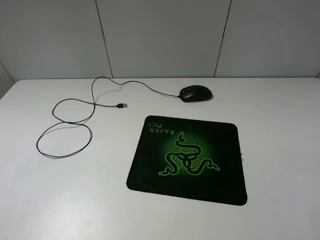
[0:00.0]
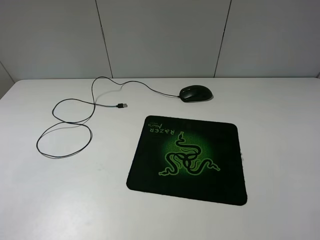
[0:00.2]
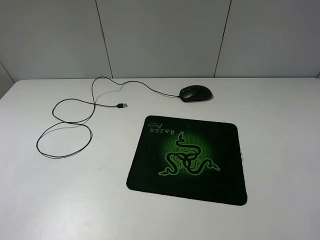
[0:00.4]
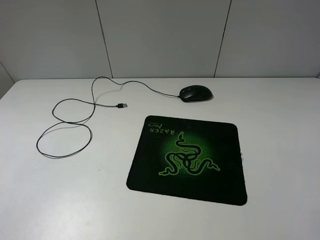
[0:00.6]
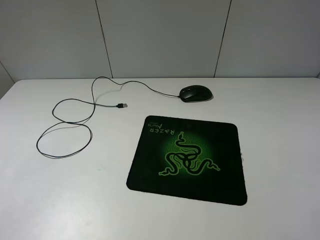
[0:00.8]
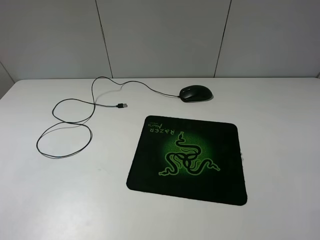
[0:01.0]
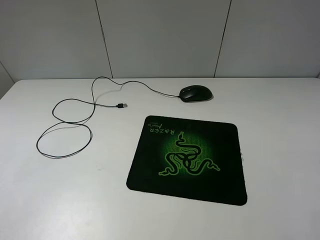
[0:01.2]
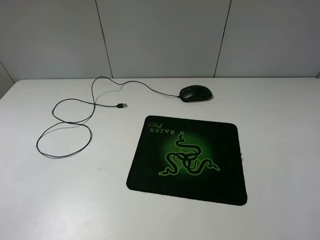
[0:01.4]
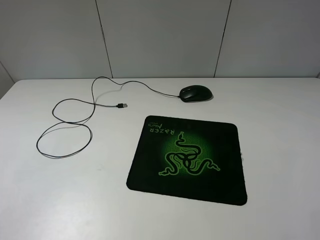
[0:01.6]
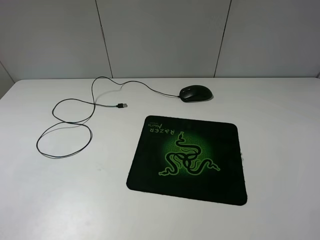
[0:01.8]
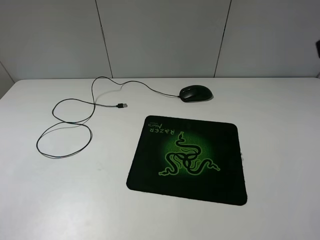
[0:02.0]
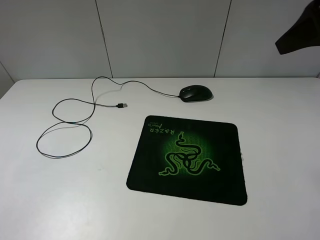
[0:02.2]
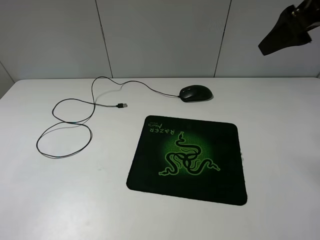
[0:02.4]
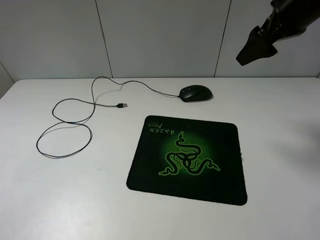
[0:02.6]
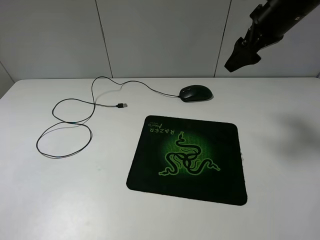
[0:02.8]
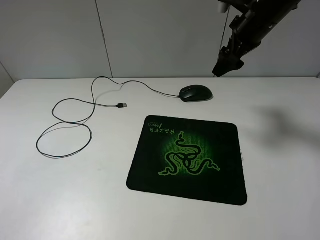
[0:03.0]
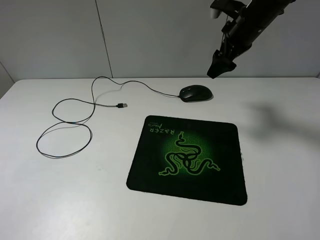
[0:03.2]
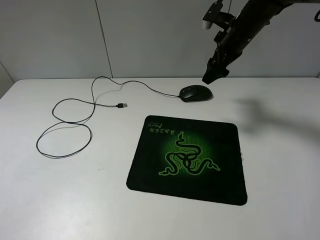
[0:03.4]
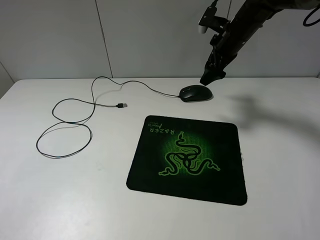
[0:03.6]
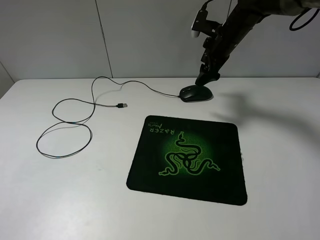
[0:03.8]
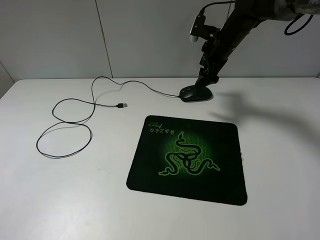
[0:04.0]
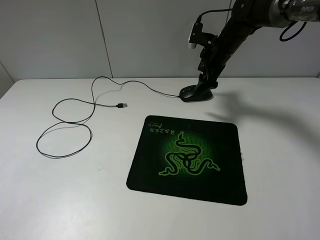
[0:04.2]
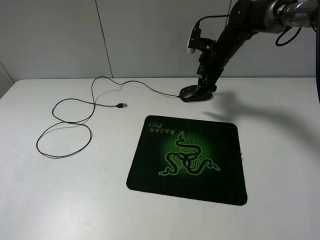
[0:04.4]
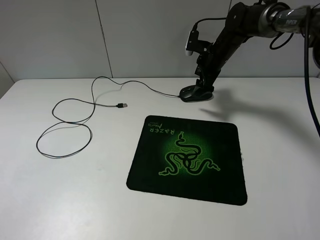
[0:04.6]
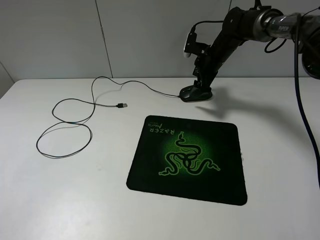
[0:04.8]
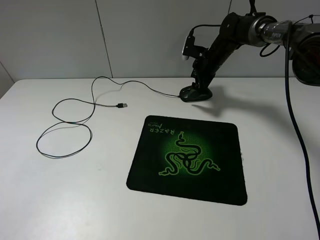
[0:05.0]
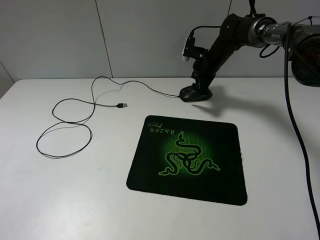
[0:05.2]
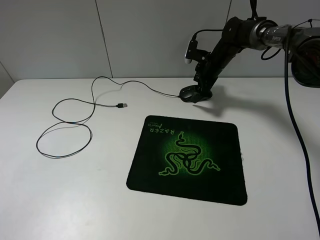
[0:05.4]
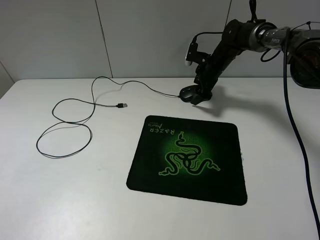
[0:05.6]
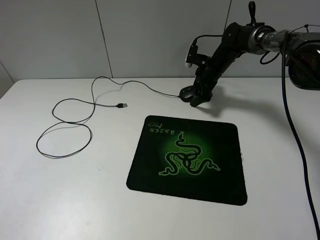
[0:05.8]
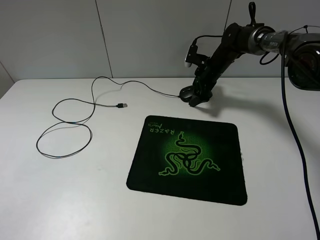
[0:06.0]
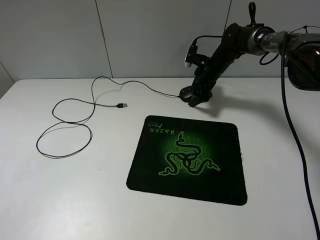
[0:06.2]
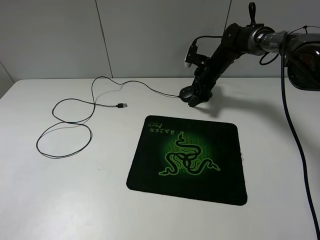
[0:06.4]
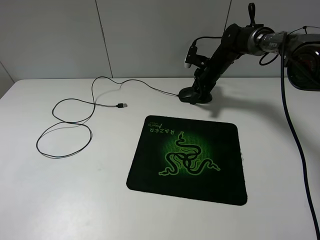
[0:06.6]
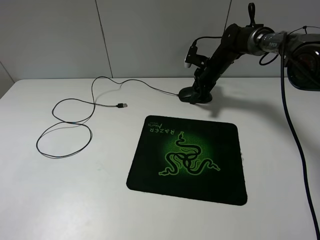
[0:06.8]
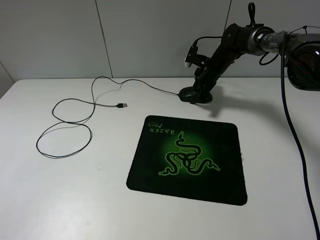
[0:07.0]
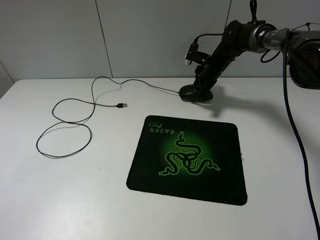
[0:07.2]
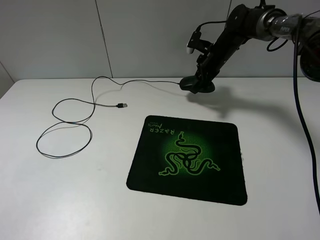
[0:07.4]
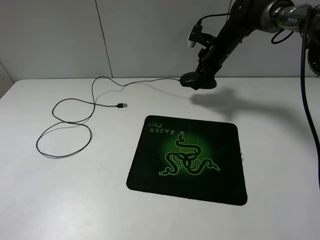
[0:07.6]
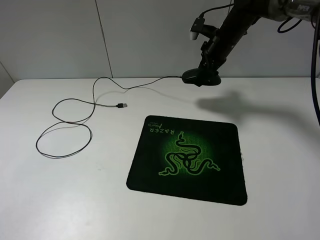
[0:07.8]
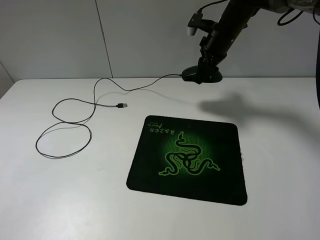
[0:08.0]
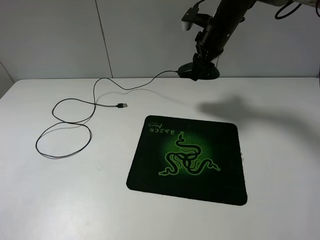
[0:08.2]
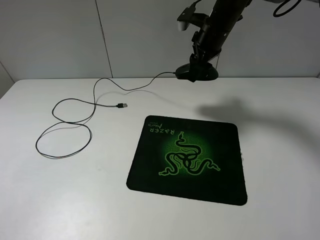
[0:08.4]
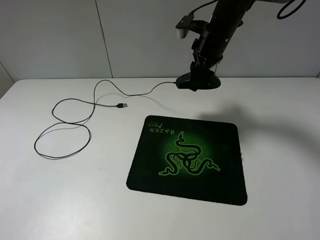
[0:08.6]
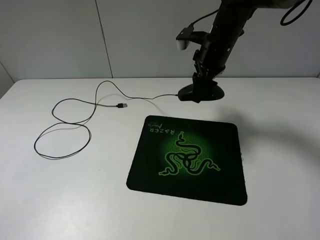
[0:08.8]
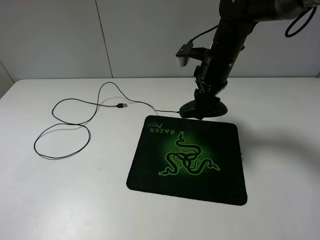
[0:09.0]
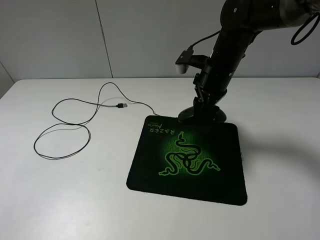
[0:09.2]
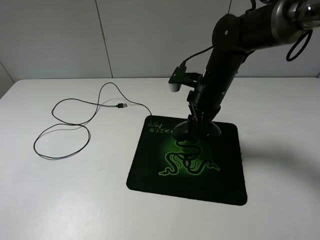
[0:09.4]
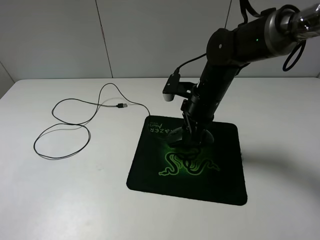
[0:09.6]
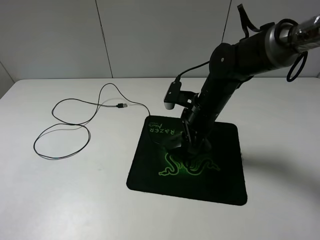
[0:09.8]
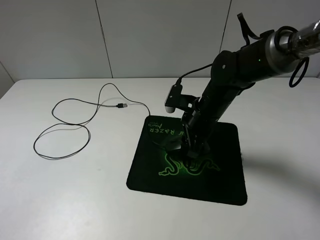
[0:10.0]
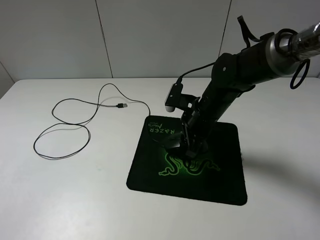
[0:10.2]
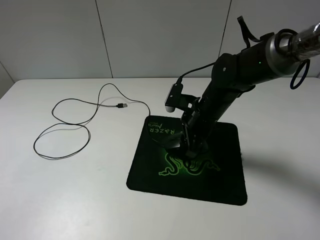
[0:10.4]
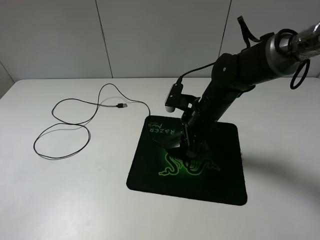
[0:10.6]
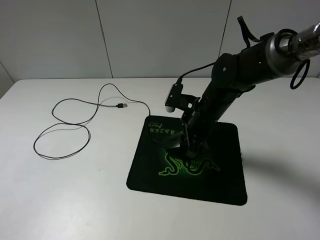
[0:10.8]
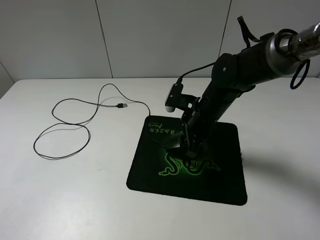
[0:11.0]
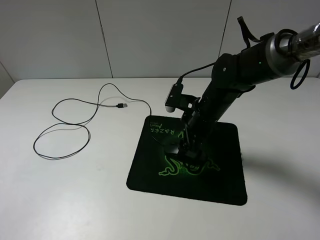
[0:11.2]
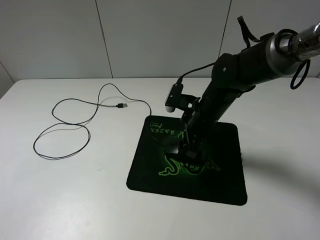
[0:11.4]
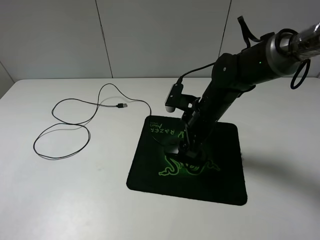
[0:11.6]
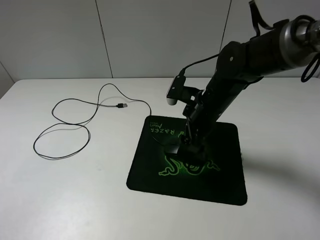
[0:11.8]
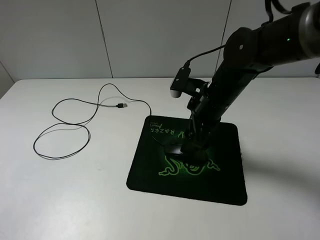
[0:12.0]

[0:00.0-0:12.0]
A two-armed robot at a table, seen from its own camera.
Step, 0:00.0 to 0:07.0: Grasp the mouse with the right gripper.
Step, 0:07.2 to 0:11.6: Place the mouse on the mouse mat with the right gripper.
0:01.6 to 0:03.0: The right gripper goes some 35 cm forward.
0:03.0 to 0:04.4: The right gripper moves downward and forward, roughly 15 cm.
0:04.4 to 0:06.0: The right gripper is displaced downward by about 5 cm.
0:06.0 to 0:07.6: The right gripper is displaced upward by roughly 5 cm, and closes.
0:07.6 to 0:09.0: The right gripper heads backward, covering approximately 15 cm.
0:09.0 to 0:10.4: The right gripper shifts about 10 cm downward and backward.
0:10.4 to 0:12.0: The right gripper moves upward, about 5 cm, and opens.

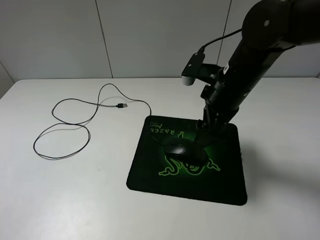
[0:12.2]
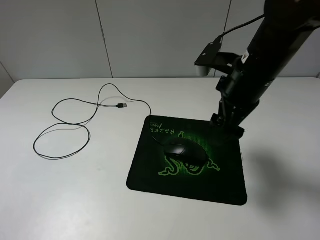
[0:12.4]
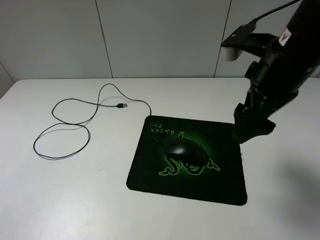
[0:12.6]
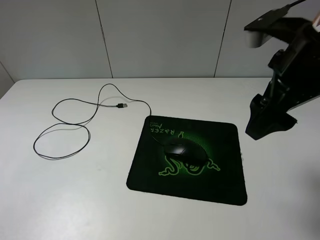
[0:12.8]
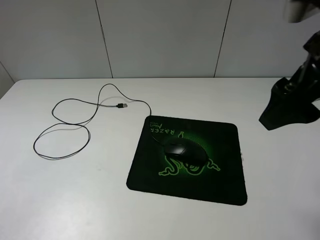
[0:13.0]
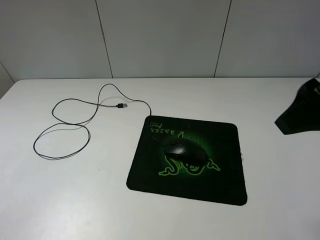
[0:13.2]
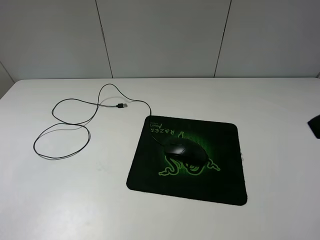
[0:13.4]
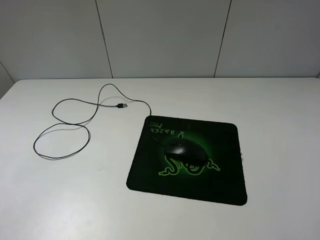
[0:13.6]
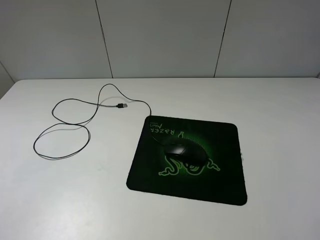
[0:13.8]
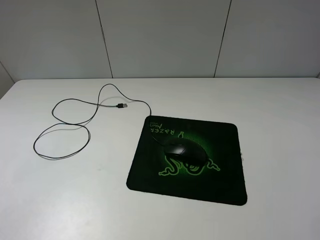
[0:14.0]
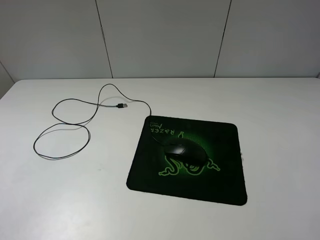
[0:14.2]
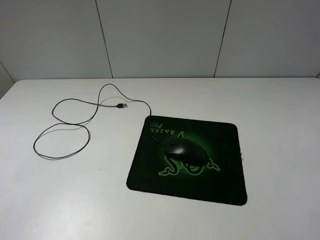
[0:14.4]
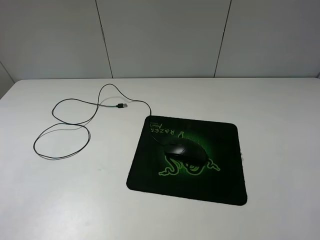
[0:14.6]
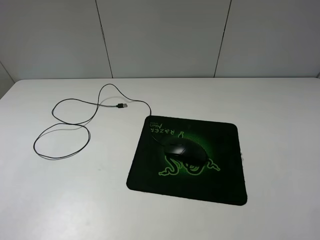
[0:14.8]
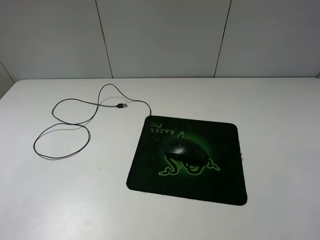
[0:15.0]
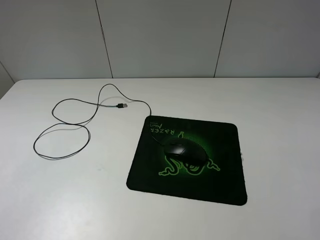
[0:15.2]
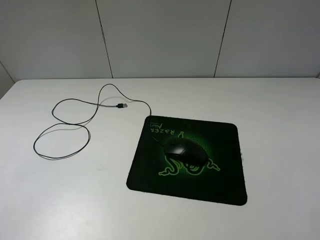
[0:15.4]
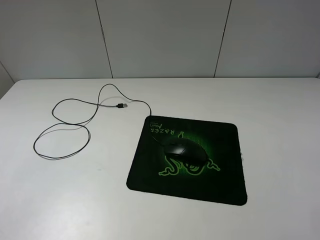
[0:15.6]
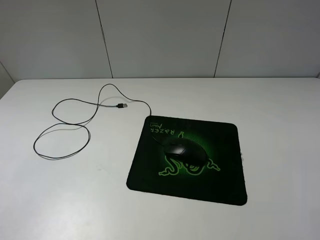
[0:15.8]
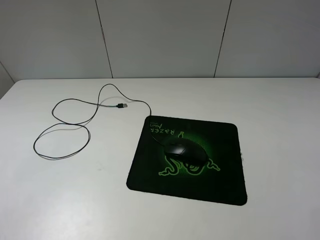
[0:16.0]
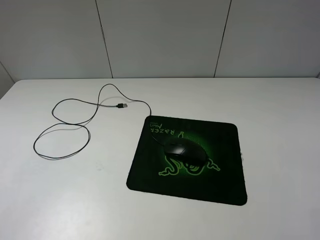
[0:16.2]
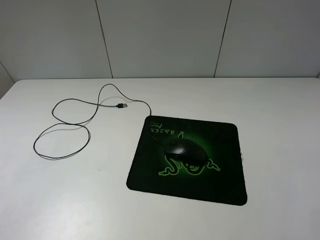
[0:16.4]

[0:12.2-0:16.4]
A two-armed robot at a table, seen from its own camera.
0:12.2 to 0:13.6: The right gripper shifts roughly 30 cm backward, upward and to the right.
0:15.0 to 0:16.4: Both grippers stay put.

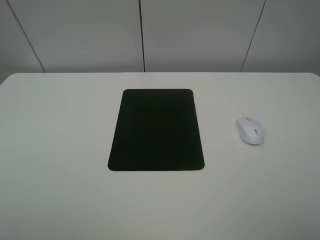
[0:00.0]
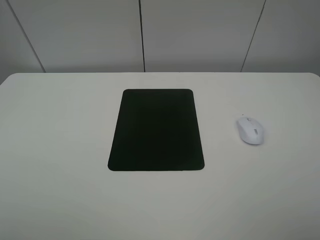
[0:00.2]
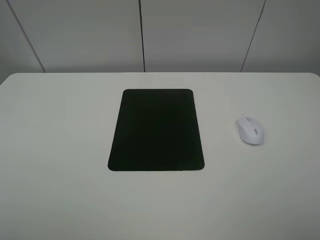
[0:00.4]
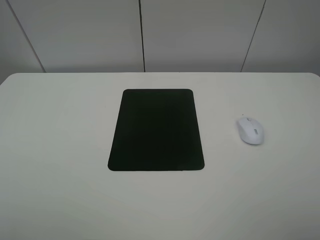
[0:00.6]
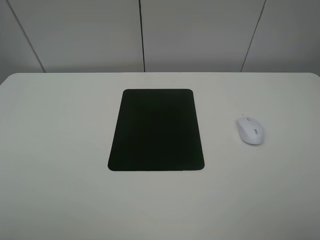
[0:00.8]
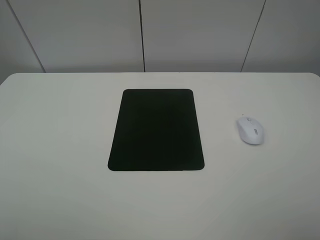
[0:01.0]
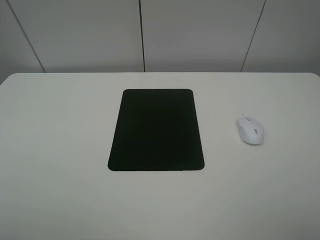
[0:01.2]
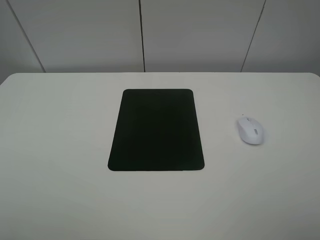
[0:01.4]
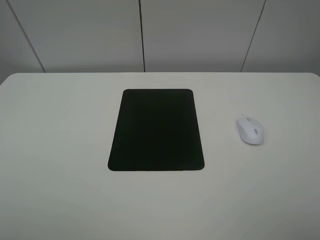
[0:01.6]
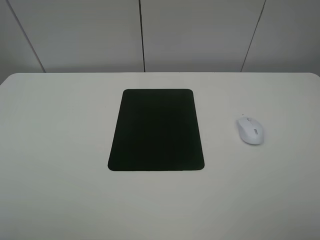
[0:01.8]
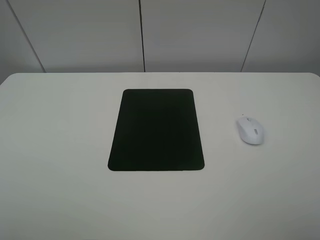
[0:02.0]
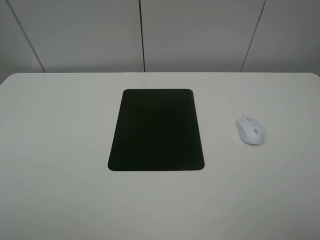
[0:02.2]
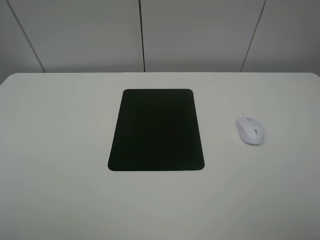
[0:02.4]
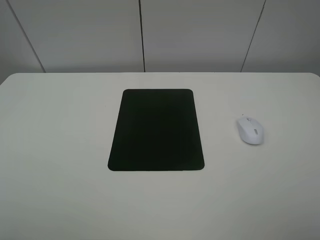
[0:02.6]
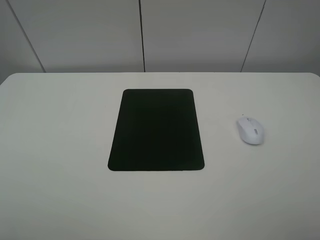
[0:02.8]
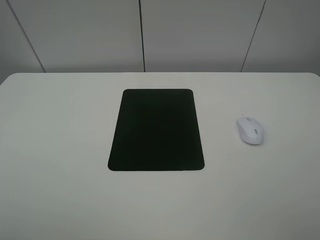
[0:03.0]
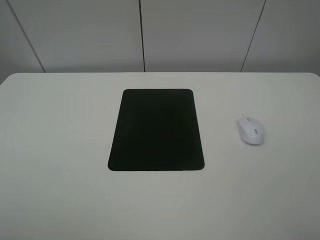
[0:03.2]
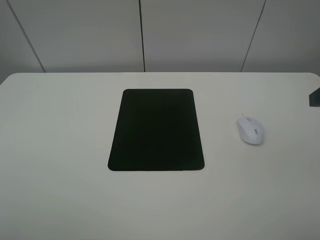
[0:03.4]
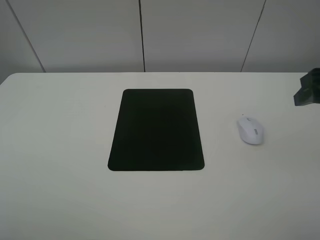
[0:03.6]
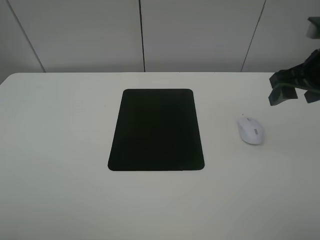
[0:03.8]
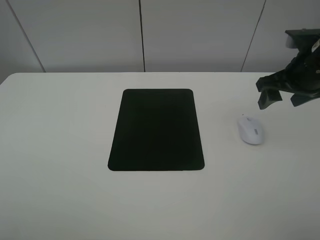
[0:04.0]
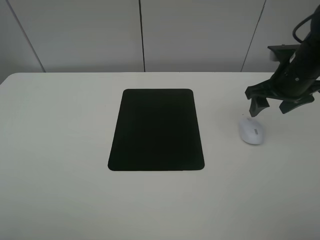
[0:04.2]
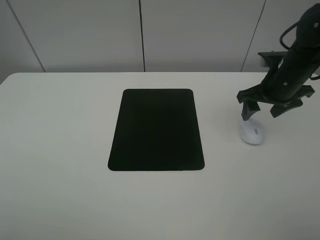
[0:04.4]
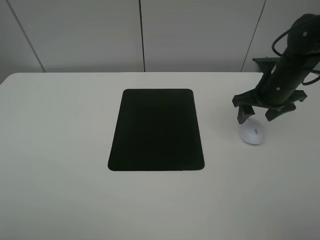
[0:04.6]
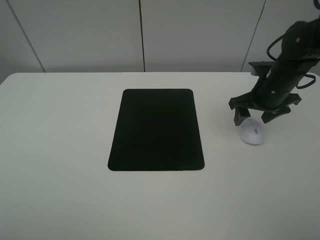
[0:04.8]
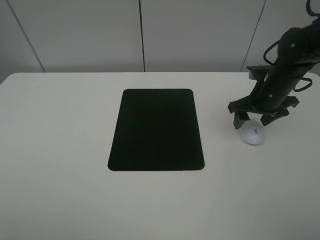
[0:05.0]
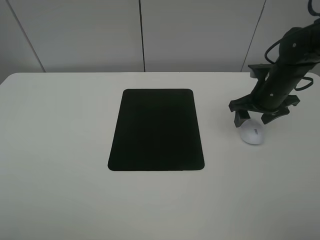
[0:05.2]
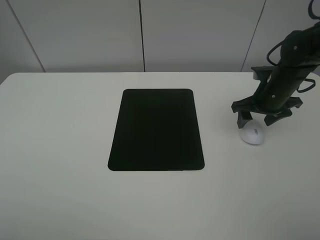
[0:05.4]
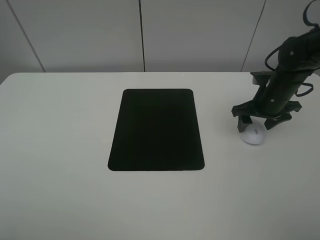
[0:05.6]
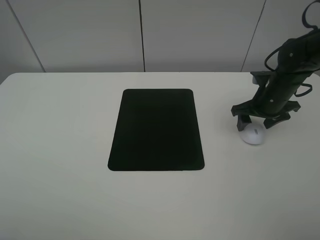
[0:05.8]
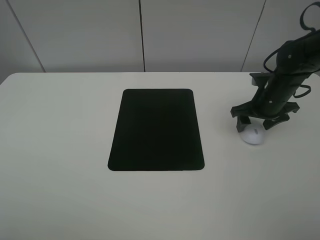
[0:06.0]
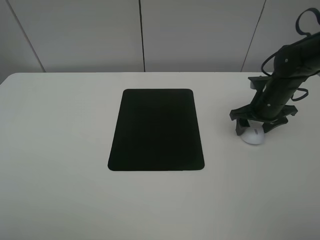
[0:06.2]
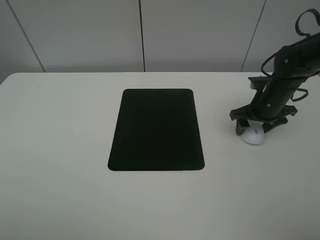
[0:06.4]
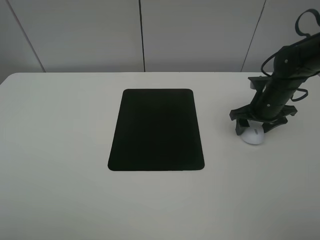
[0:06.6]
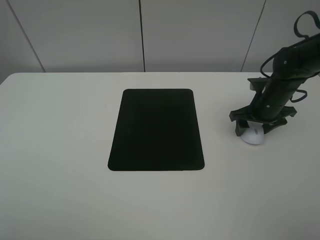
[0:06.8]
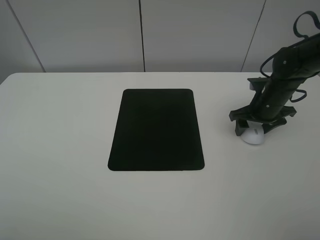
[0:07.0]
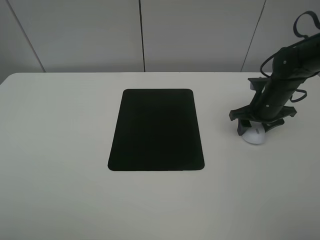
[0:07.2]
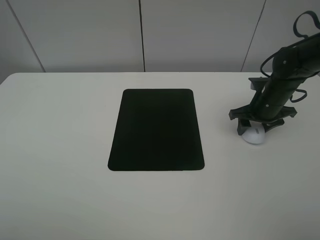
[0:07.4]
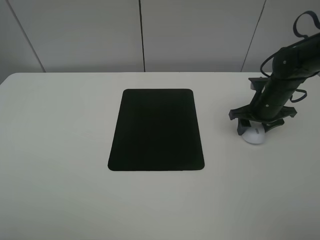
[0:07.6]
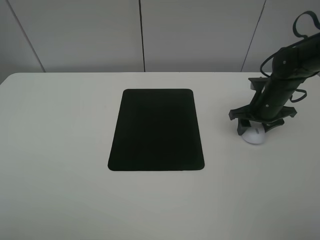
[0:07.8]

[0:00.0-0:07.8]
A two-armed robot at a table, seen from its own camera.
Step, 0:00.0 to 0:07.0: Grasp the mouse with the right gripper.
0:00.0 to 0:01.6: The two grippers keep their place.
0:03.2 to 0:04.6: The right gripper travels forward and downward by about 25 cm.
0:04.6 to 0:06.2: The right gripper goes roughly 5 cm downward.
0:06.2 to 0:07.8: The right gripper closes its fingers.
